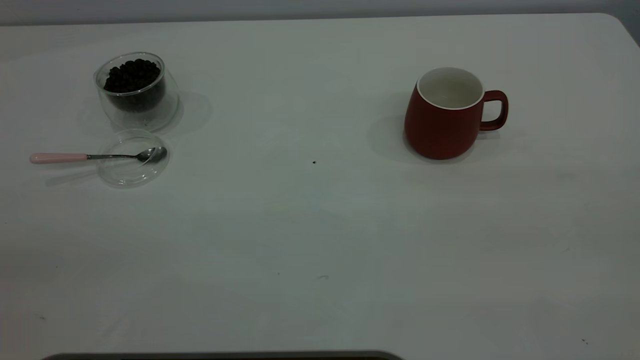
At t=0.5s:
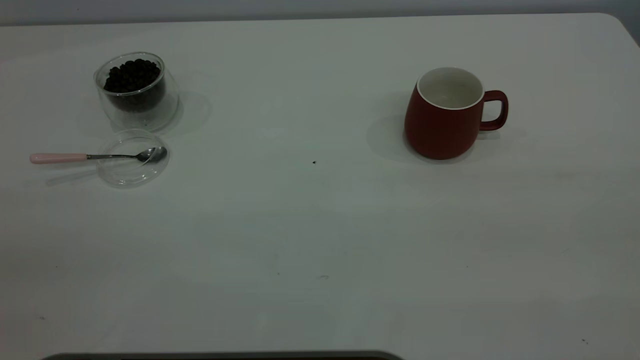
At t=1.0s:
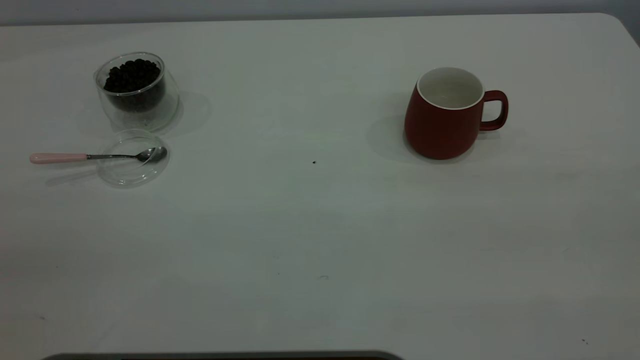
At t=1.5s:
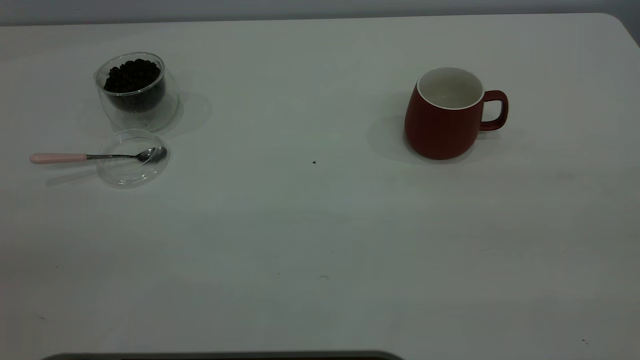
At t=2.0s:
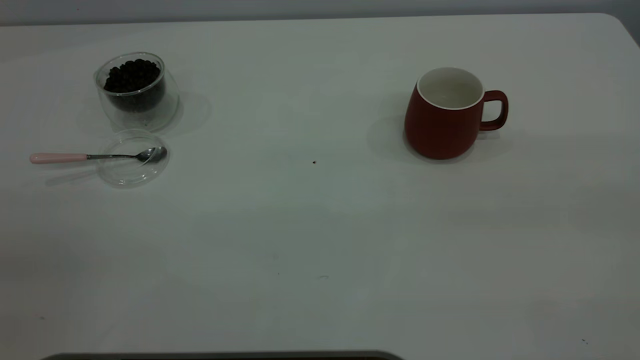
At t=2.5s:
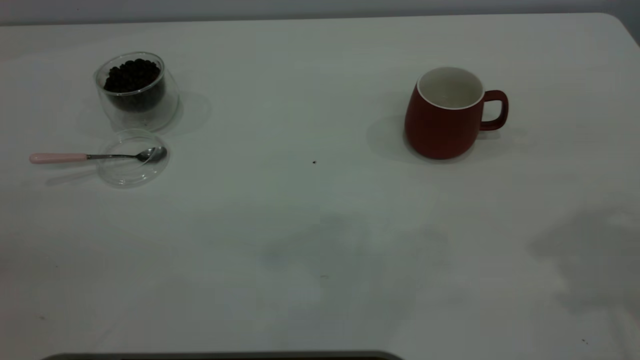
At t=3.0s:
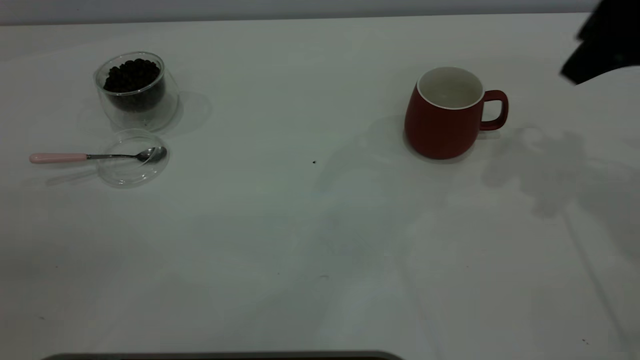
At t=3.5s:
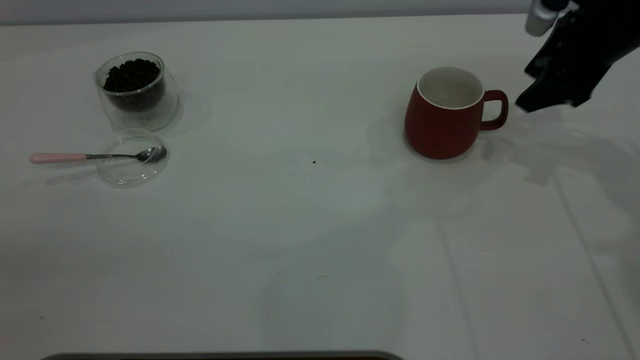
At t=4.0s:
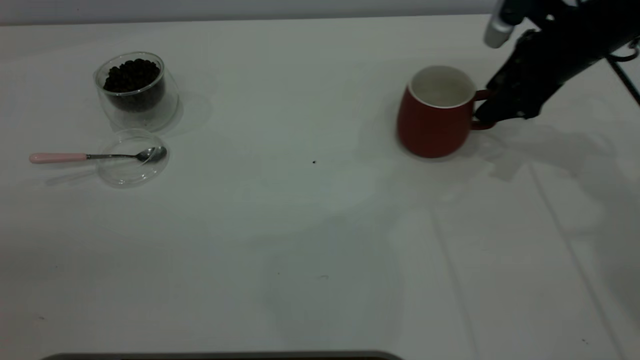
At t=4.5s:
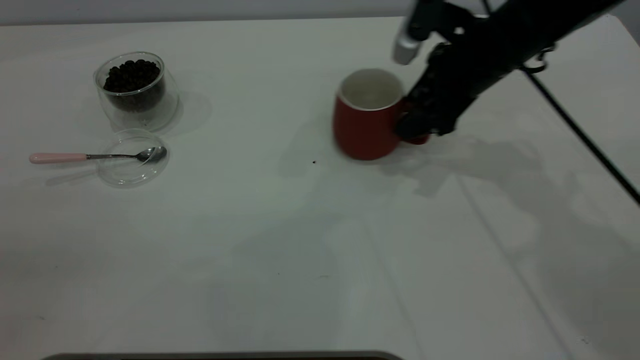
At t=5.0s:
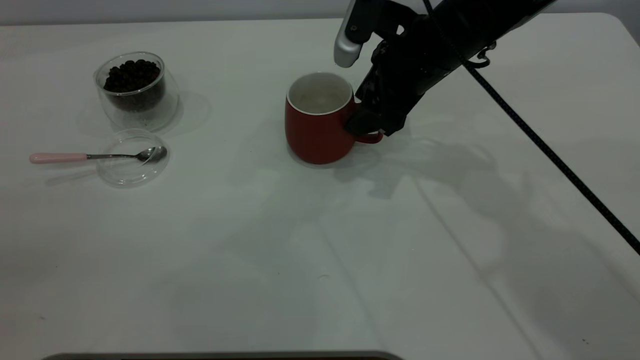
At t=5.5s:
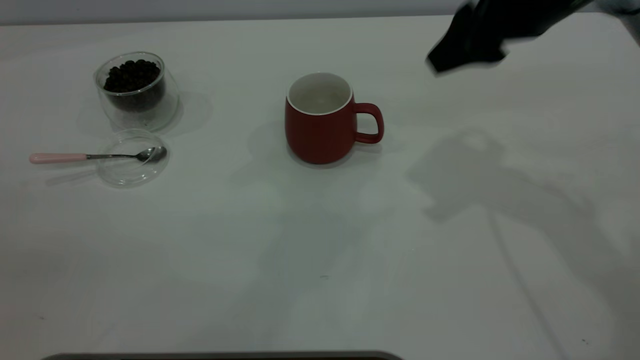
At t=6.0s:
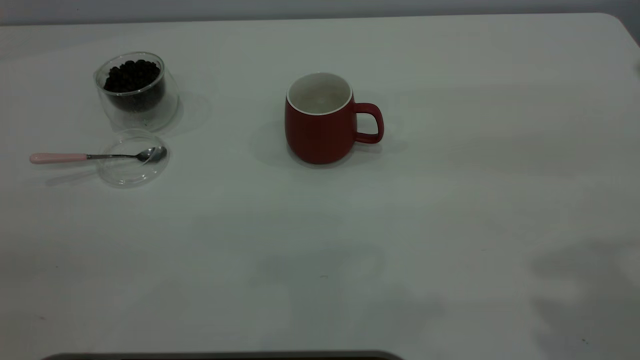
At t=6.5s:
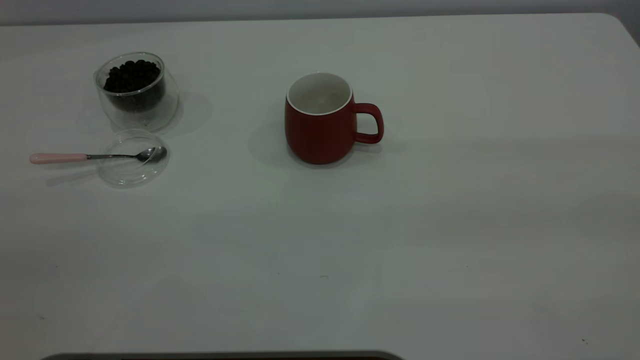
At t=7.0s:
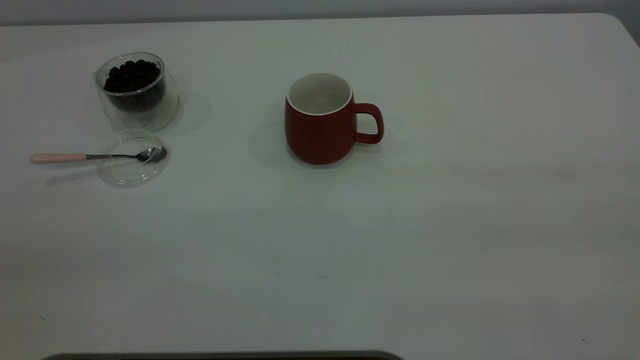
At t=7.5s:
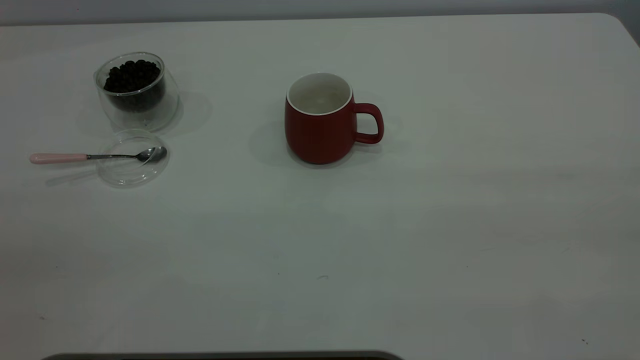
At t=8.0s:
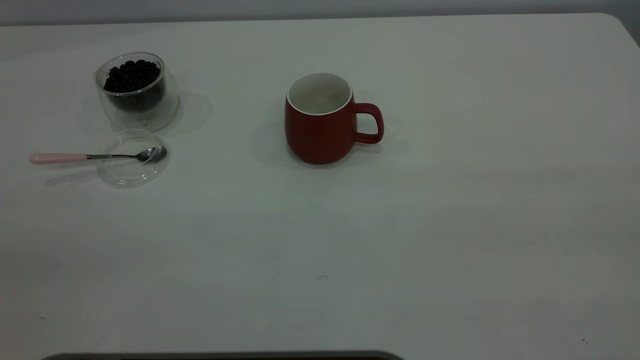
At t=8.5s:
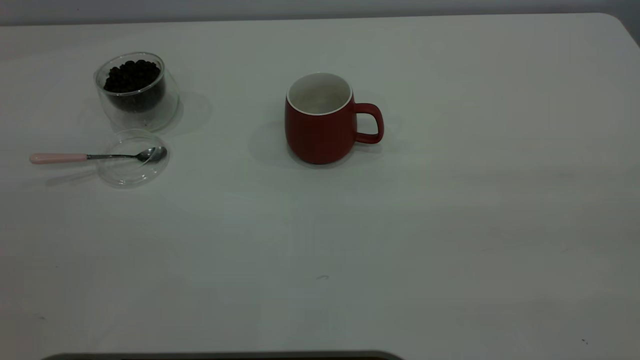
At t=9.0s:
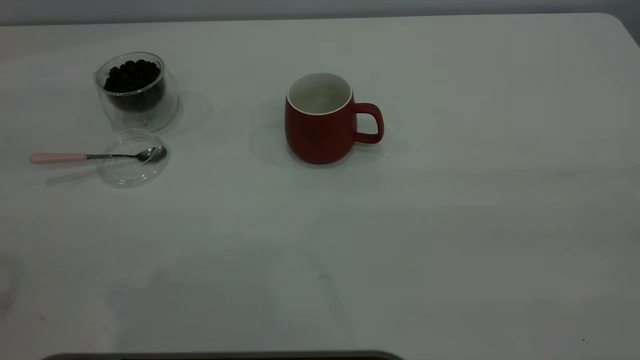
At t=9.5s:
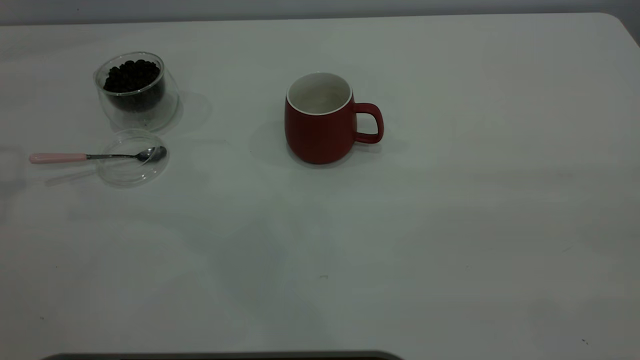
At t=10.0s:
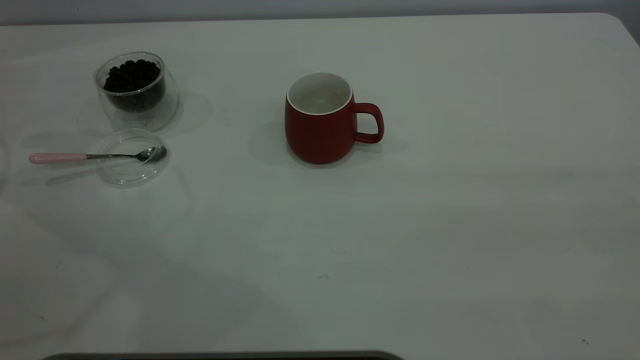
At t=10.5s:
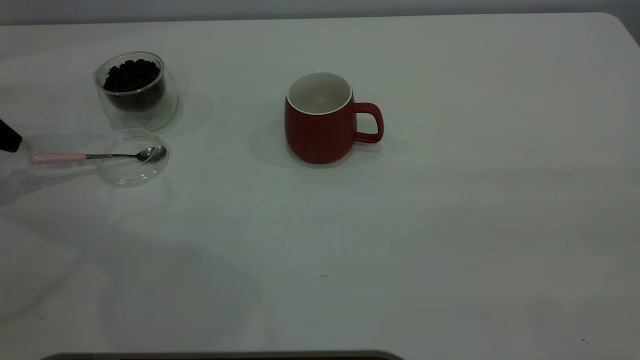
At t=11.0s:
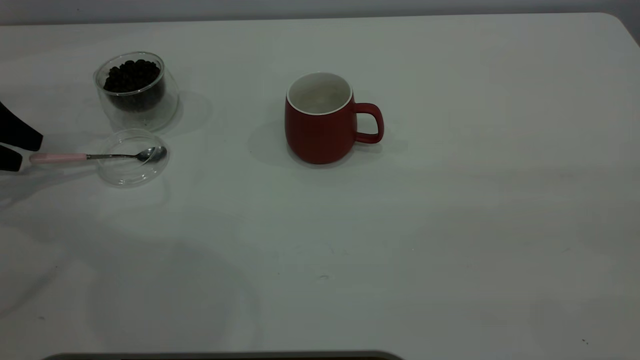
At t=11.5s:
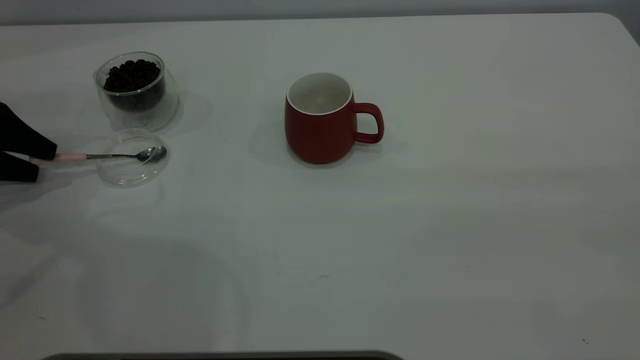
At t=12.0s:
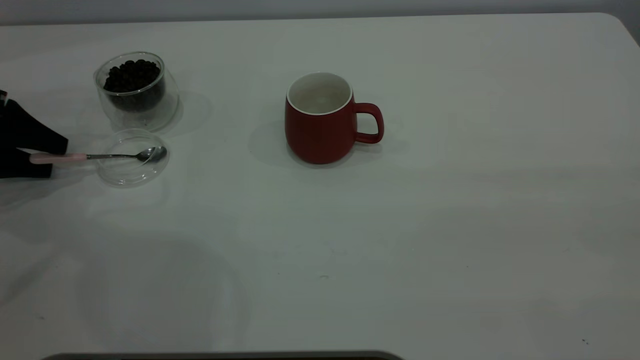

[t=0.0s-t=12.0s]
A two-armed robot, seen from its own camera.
Task of the whole recording: the right gripper place the red cup in the center of the table, the left gripper take the pink spoon from the cup lid and scoop out the coffee beans from the coffee cup and put them into the red cup, the left gripper put the spoon back into the cup lid.
Step, t=0.0s to t=5.0s: Move the cup to the center of view.
t=2.0s to t=4.0s: The right gripper moves forward and downward, about 40 cm.
t=4.0s to t=6.0s: The right gripper moves backward and upward, some 35 cm.
t=10.0s to t=12.0s: The left gripper moves downward, roughly 10 cm.

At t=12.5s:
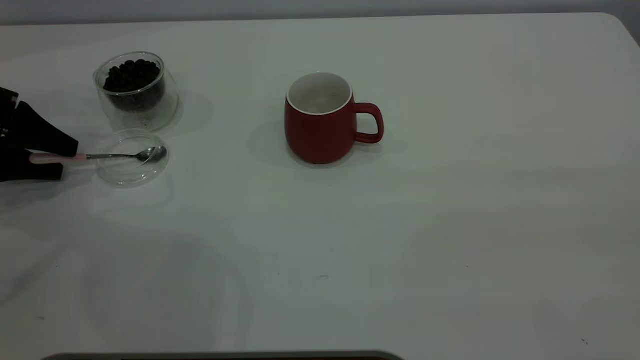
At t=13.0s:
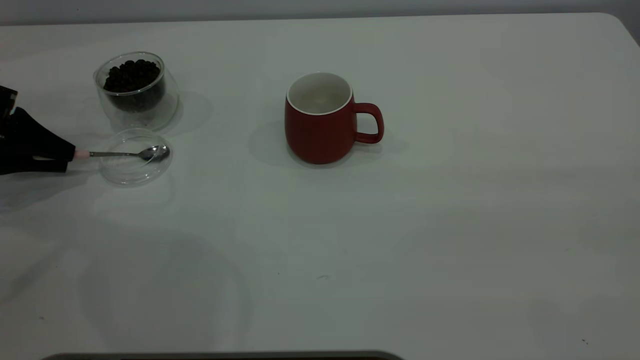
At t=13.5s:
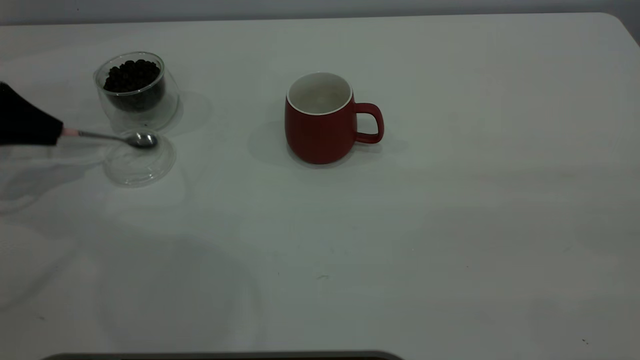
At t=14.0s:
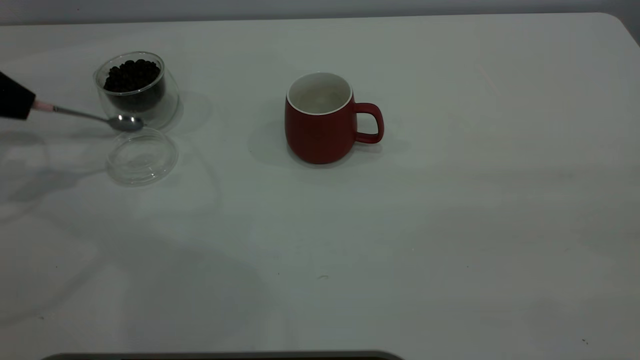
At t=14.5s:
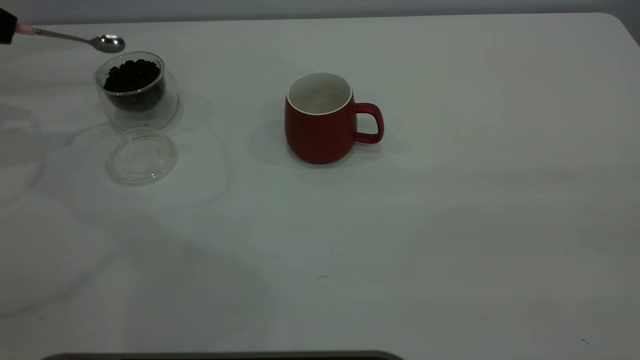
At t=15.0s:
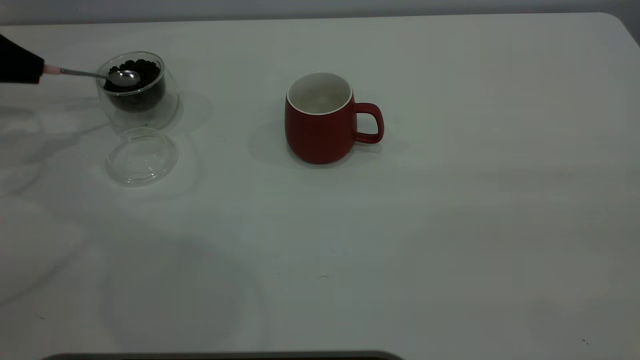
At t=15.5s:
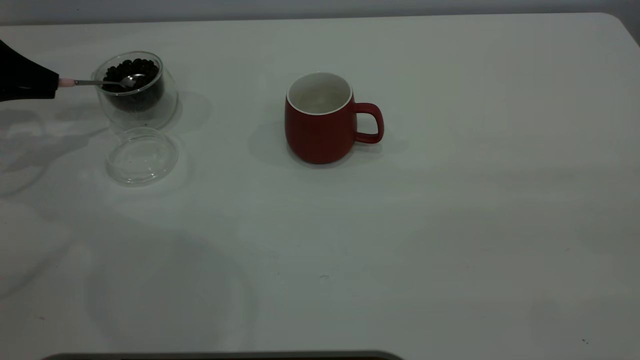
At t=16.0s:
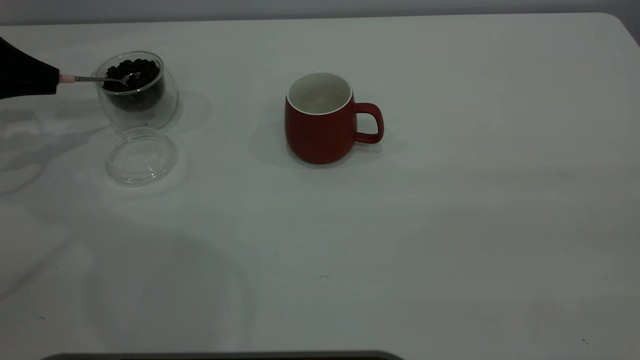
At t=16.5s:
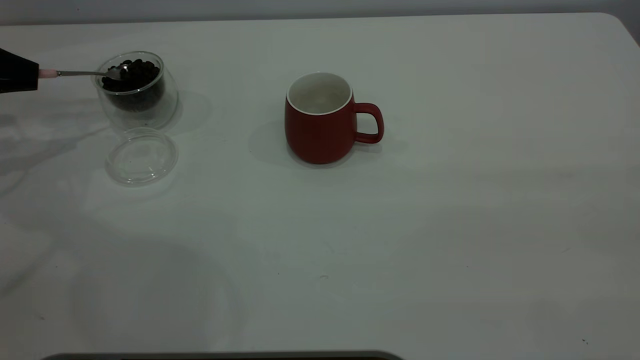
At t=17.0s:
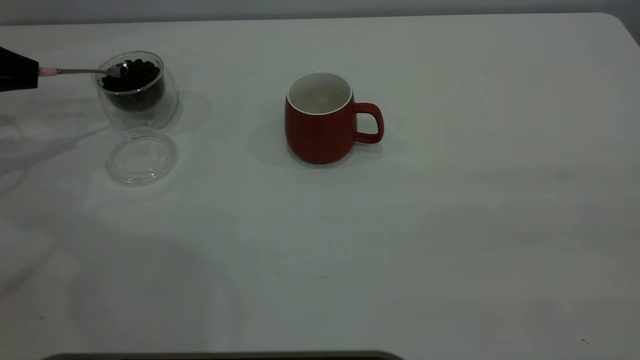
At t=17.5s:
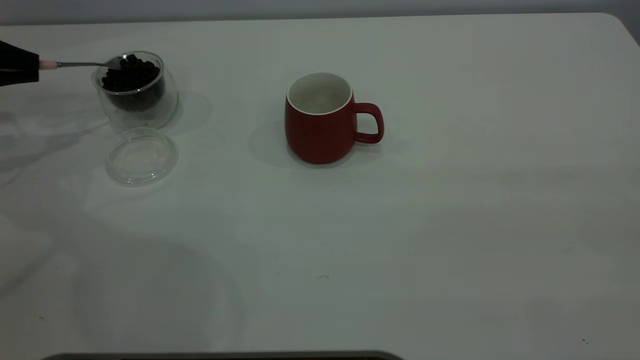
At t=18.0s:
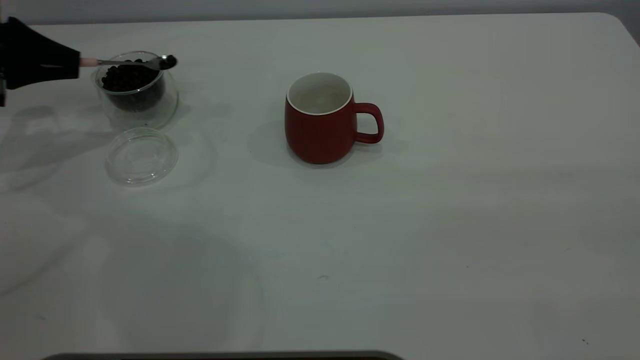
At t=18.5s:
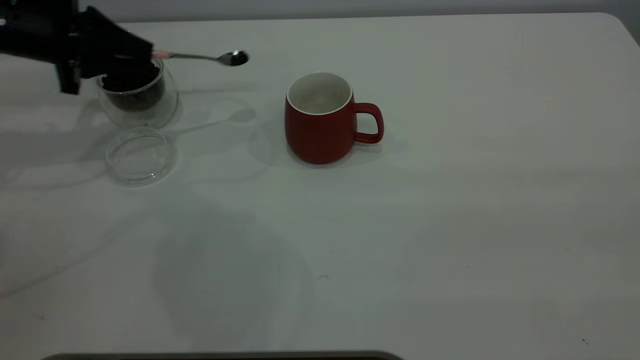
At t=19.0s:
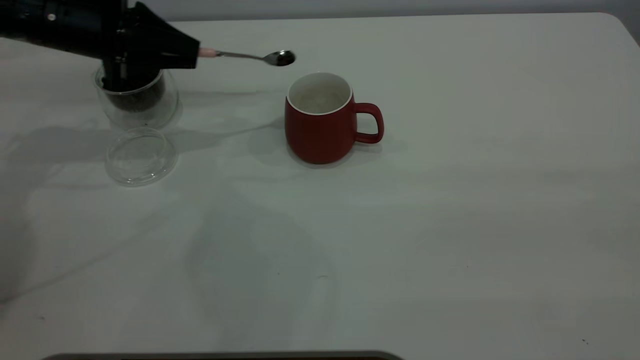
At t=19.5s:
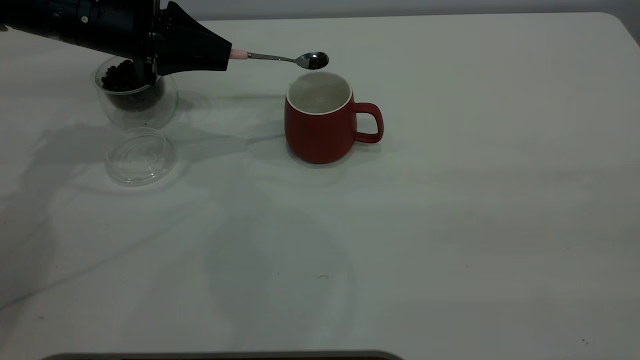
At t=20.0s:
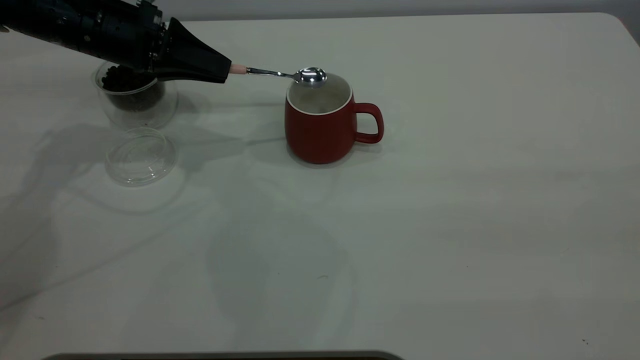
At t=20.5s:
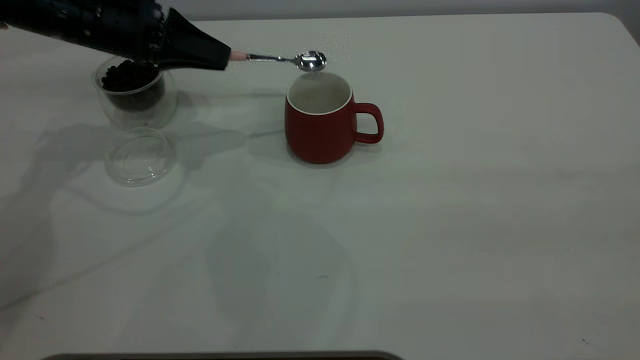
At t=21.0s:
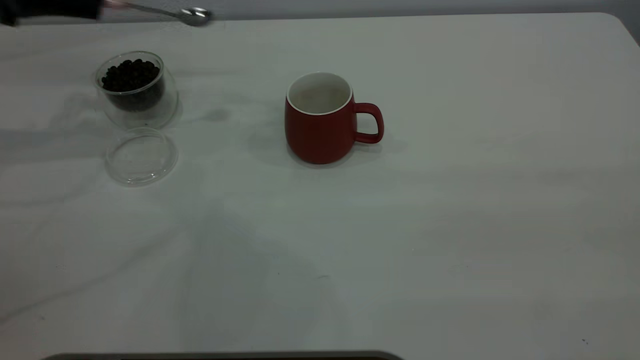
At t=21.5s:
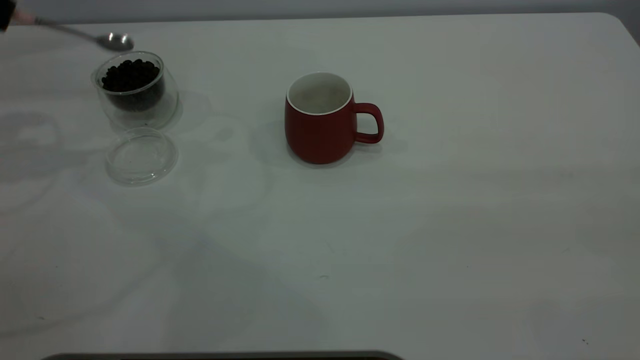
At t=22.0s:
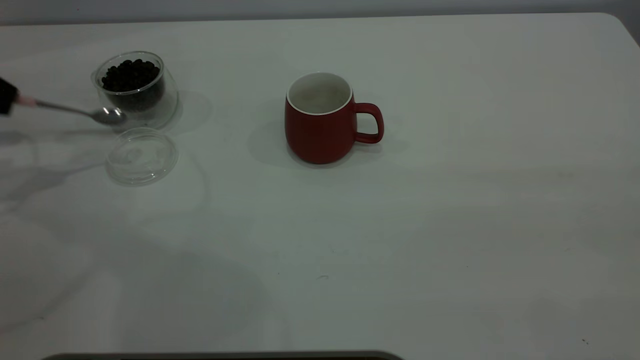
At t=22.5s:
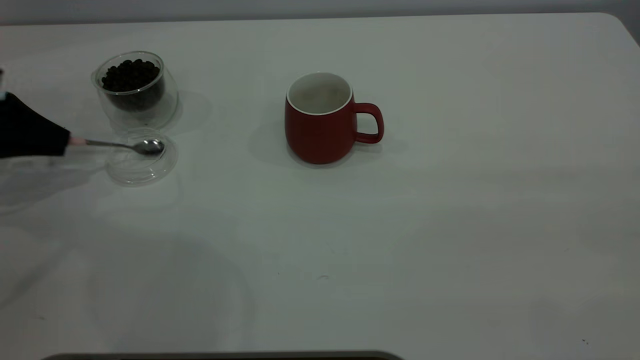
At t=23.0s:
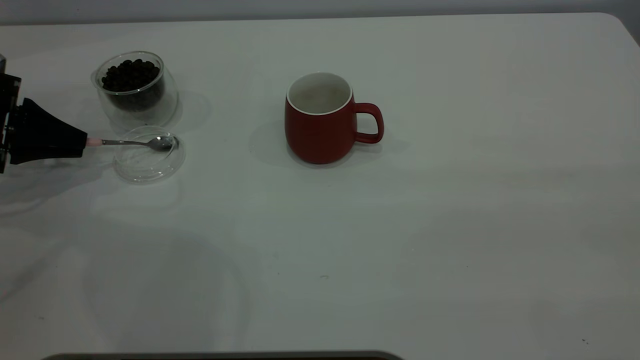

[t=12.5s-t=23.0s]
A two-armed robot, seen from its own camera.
Task of the whole recording: the right gripper place the red cup in the center of the table, the left gripper take the pink spoon from the cup lid and scoop out the coffee beans from the coffee cup and put them into the red cup, the left gripper put the spoon back into the cup lid.
Step, t=14.5s to t=20.5s: Scoop a spoonful of beans into the cup.
t=12.5s to t=14.5s: The left gripper shifts approximately 15 cm upward, and closes.
t=14.5s to t=16.5s: The left gripper travels downward by about 5 cm.
t=16.5s to t=19.0s: The left gripper goes about 20 cm to the right.
t=19.0s to t=21.0s: The left gripper moves to the left and upward, some 10 cm.
t=21.0s to t=23.0s: The left gripper is displaced downward by roughly 15 cm.
